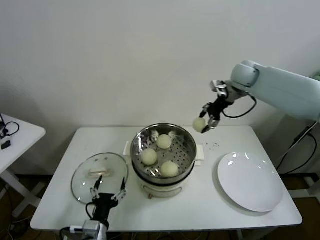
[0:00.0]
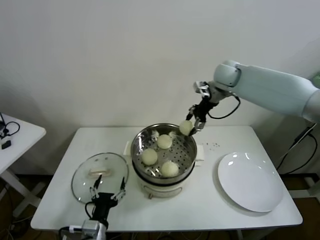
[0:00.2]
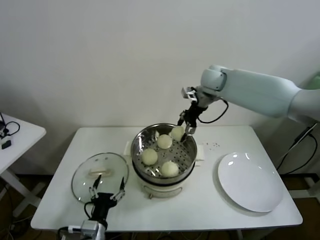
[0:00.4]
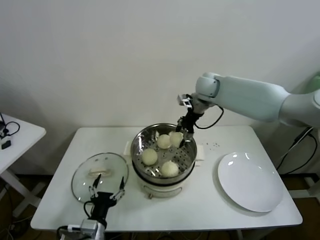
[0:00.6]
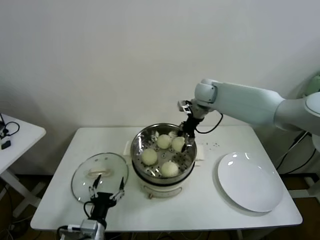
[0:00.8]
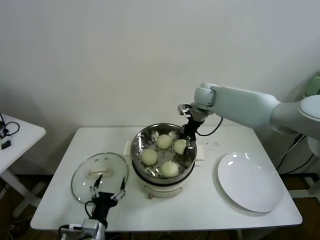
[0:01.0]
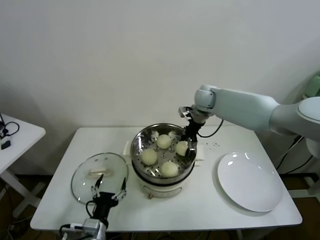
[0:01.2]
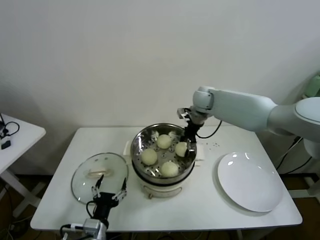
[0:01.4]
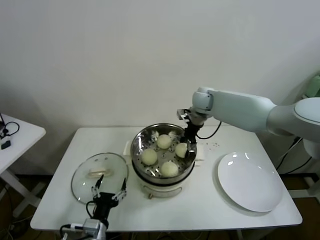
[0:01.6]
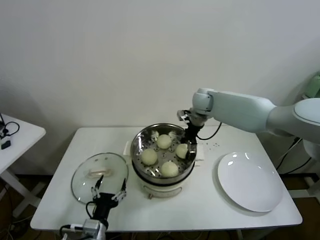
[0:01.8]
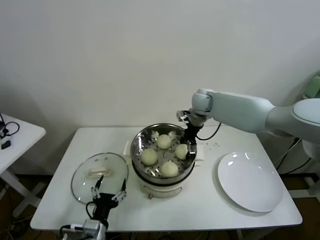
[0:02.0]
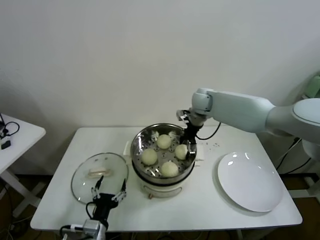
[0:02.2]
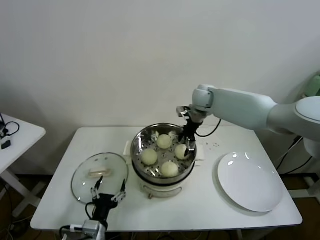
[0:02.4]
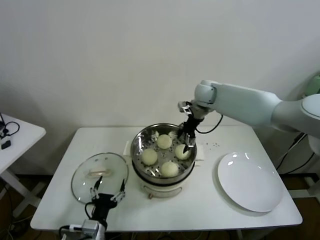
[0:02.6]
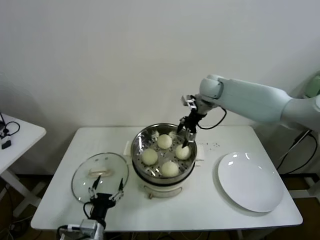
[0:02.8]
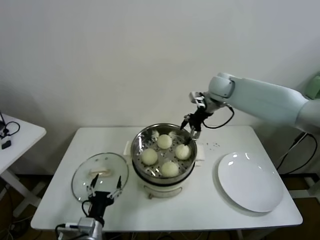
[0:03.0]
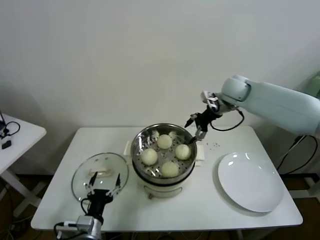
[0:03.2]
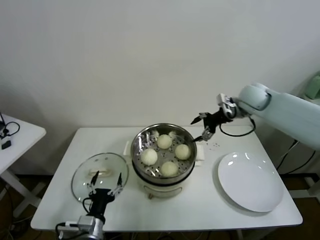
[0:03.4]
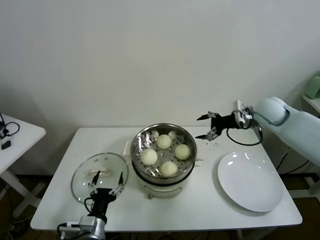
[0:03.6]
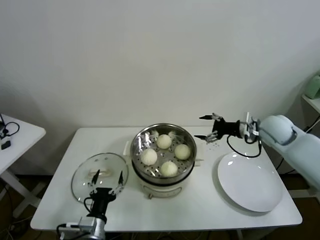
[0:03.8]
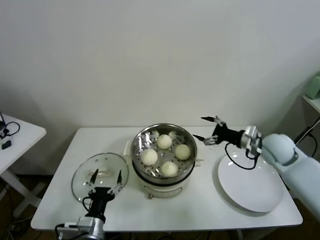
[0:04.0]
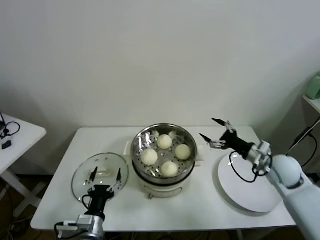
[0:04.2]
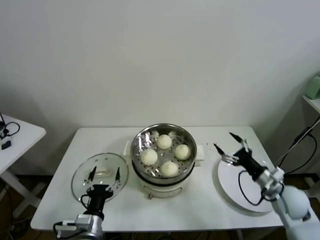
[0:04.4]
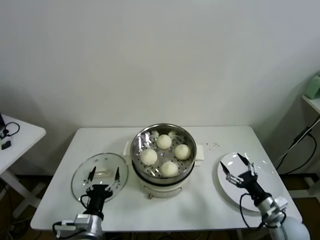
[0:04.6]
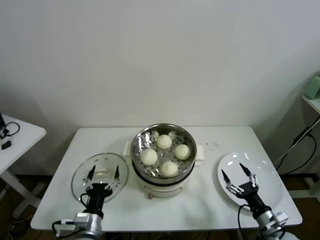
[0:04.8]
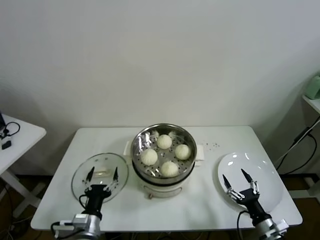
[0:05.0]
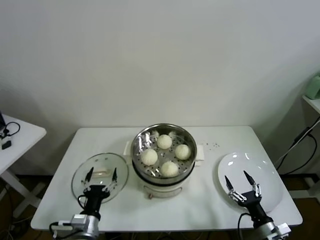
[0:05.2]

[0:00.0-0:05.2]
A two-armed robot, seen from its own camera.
Task of the whole recording: take steamed baozi put them in steamer.
Step, 0:00.0 to 0:02.6: Place the baozi on the steamer with right gripper.
0:00.0 to 0:01.8: The right gripper goes roughly 15 cm to the left and downward.
0:01.8 to 0:03.4: The right gripper moves to the right and upward, approximately 15 cm, and opens its fingers.
0:03.4 to 0:05.2: The right gripper moves backward and downward, some 50 cm.
